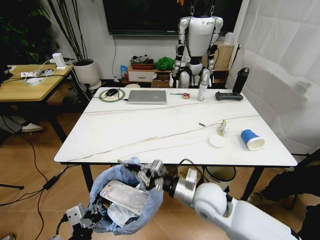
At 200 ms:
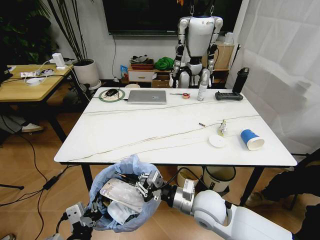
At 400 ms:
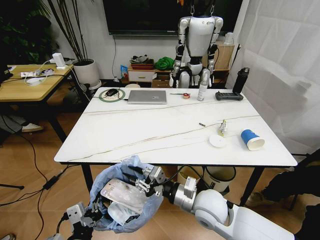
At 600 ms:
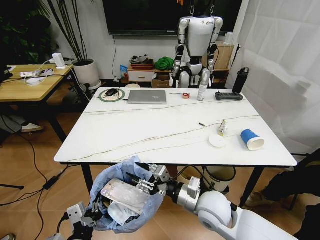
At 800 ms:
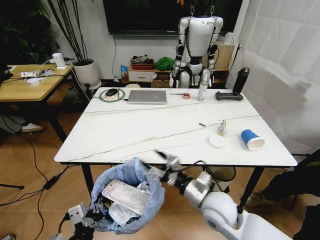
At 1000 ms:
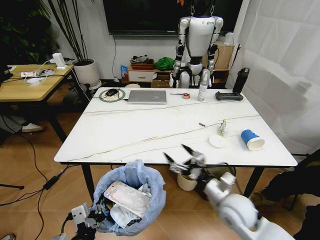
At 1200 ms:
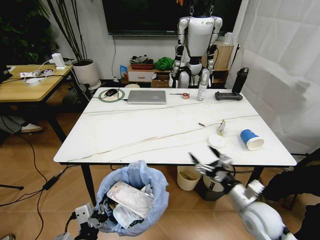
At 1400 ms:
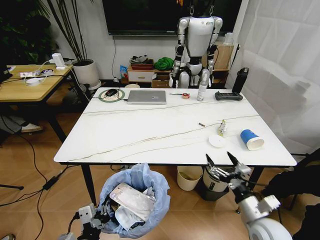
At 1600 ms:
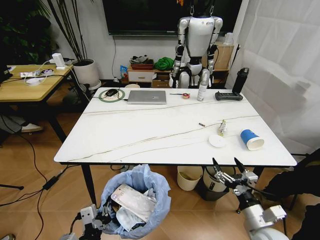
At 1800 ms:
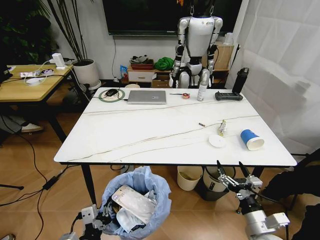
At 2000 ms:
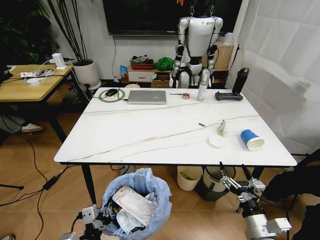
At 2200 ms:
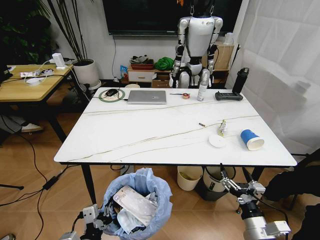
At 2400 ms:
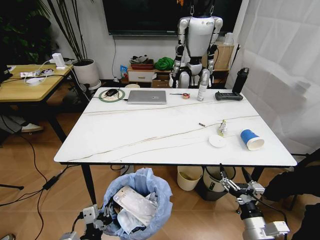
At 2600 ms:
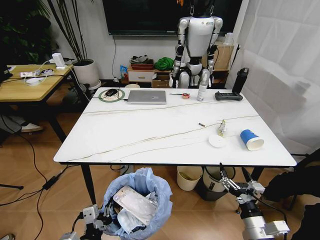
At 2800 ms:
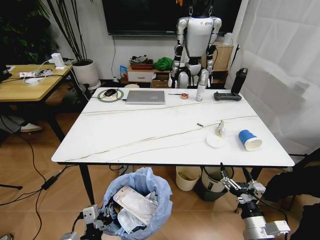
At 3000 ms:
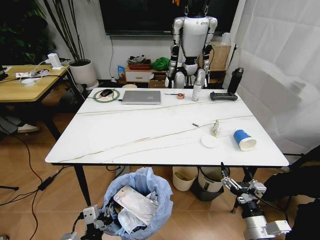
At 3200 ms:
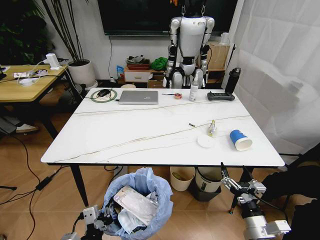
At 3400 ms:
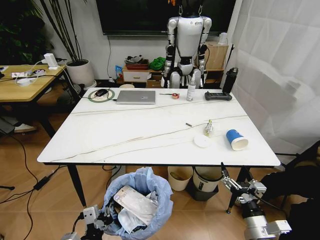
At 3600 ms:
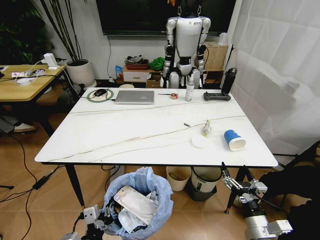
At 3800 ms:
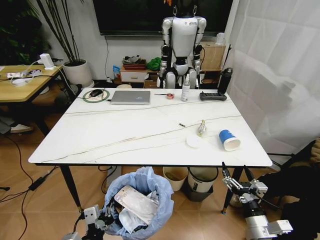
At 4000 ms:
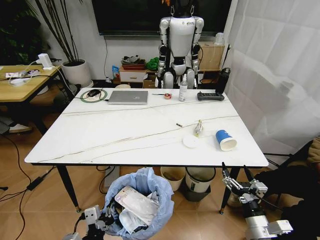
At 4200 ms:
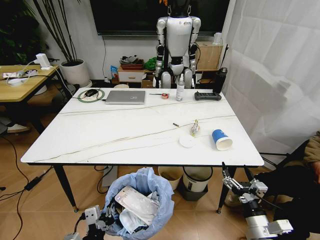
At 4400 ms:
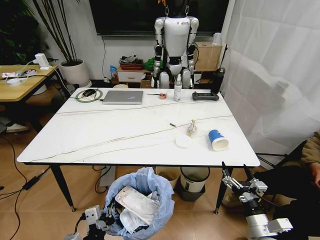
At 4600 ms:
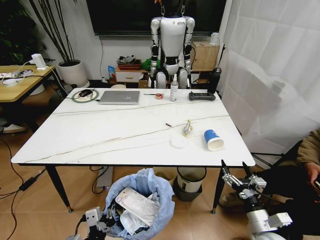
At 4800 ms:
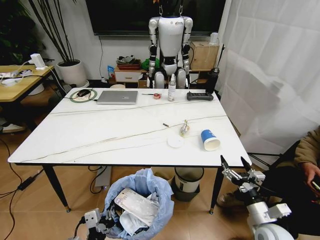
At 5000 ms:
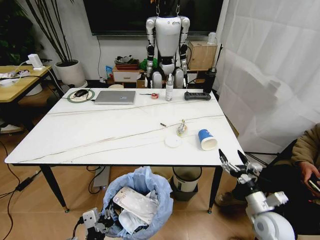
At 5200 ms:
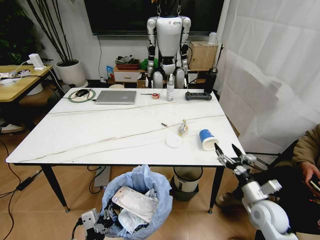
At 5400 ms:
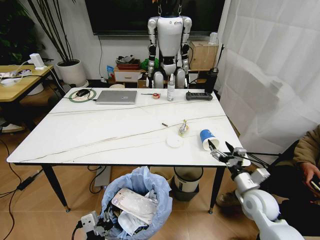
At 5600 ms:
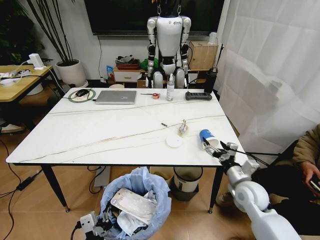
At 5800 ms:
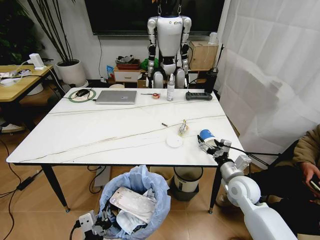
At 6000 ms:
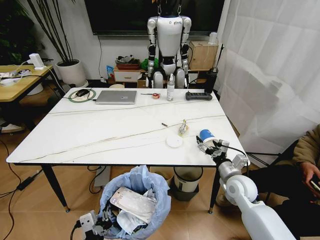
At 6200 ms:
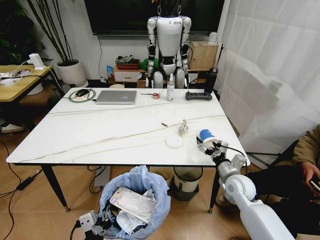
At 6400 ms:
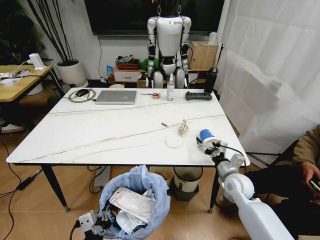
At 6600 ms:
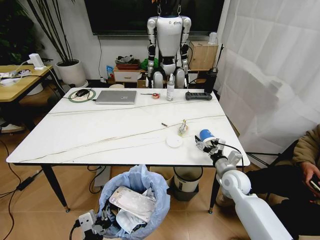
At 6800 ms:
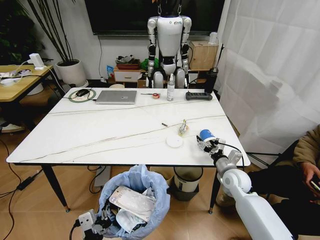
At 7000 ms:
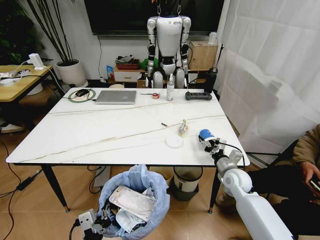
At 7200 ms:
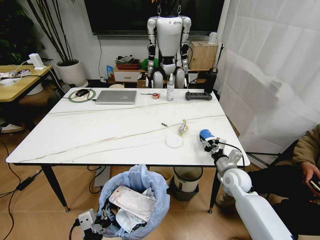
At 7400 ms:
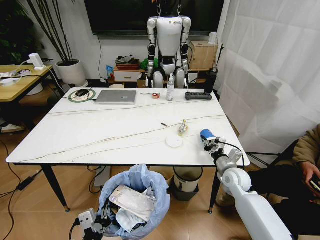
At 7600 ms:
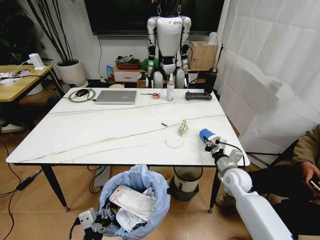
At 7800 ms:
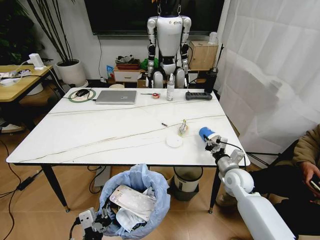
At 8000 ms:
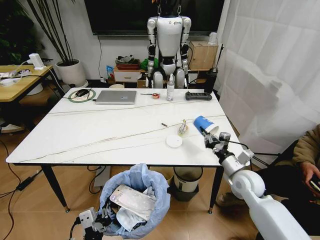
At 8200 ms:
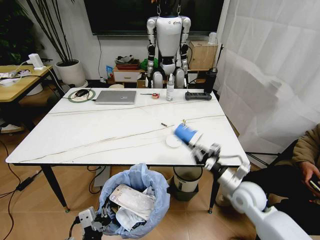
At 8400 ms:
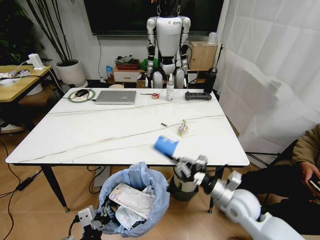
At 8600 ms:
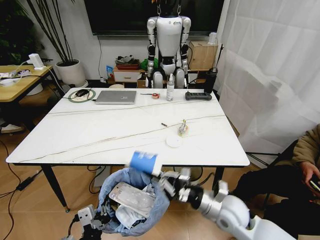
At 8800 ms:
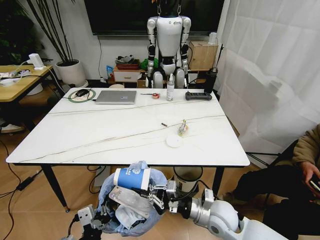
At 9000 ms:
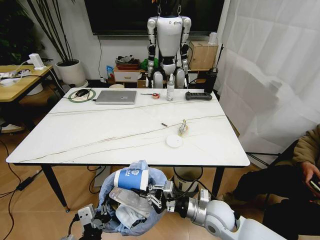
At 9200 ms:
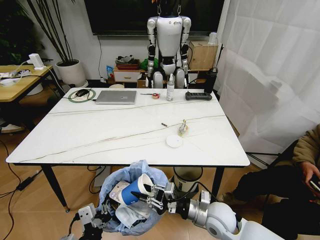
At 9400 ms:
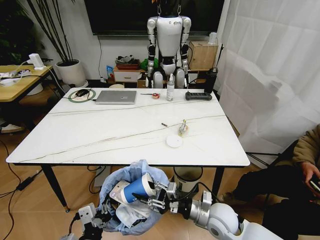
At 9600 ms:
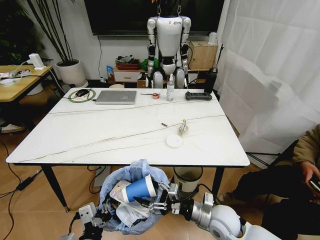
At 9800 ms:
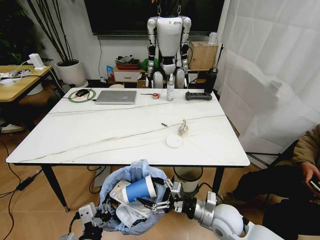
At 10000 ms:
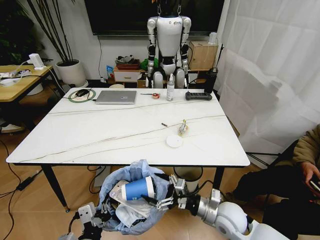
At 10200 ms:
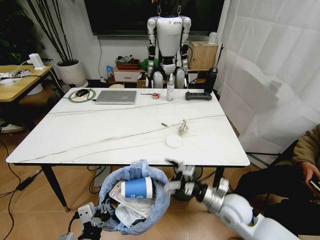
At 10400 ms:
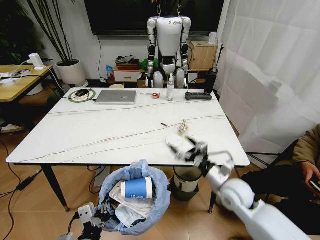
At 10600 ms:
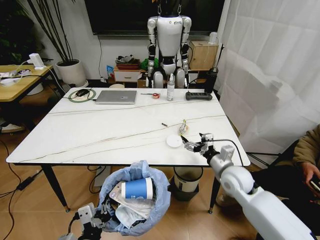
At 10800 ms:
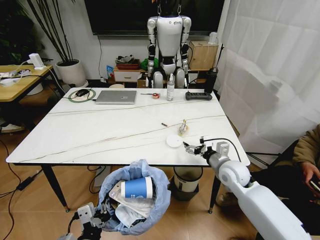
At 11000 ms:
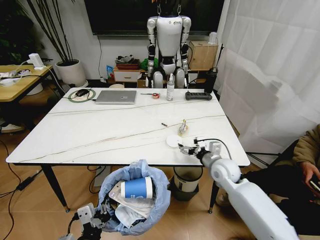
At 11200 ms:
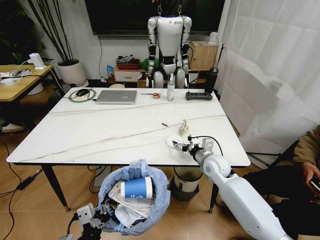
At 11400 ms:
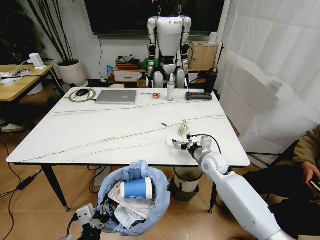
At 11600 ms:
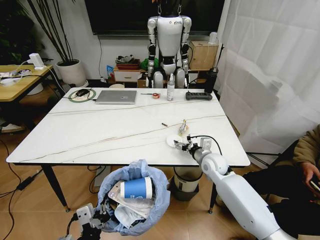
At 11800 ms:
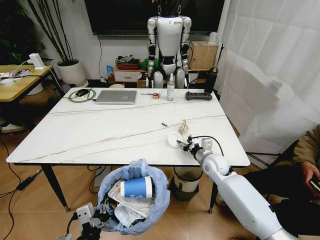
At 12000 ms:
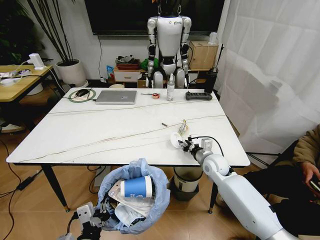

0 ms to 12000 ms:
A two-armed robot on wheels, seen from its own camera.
Task of the whole recording: Pick up the trash bin and place the trash from the table into it.
0 ms to 1600 ms: The right gripper moves to the right and backward, roughly 20 cm, and opens up.
4400 ms to 6000 ms: The right gripper moves forward, roughly 20 cm.
6000 ms to 7600 ms: The right gripper changes place by roughly 5 cm, and closes.
7600 ms to 9000 ms: The right gripper travels backward and to the left by roughly 15 cm.
9000 ms to 10400 ms: The right gripper goes some 5 cm to the right, and opens.
10400 ms to 12000 ms: The right gripper is displaced forward by some 15 cm, and closes.

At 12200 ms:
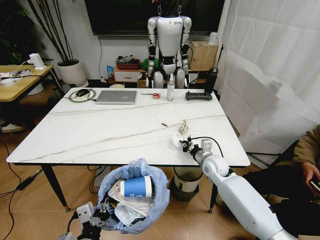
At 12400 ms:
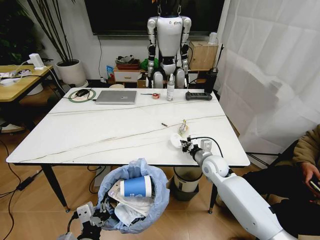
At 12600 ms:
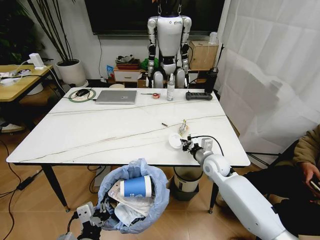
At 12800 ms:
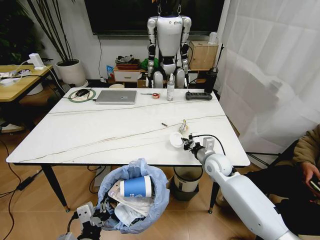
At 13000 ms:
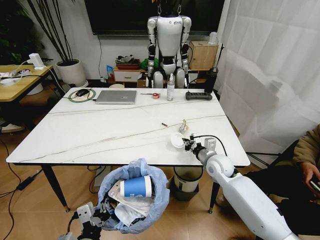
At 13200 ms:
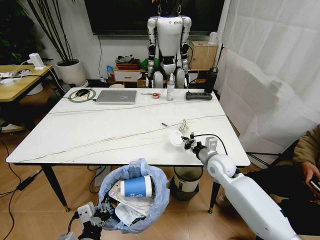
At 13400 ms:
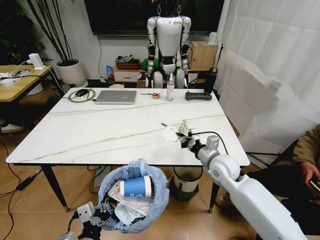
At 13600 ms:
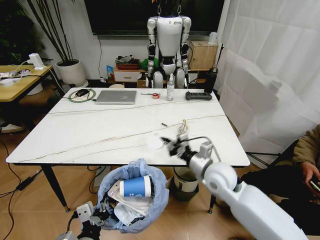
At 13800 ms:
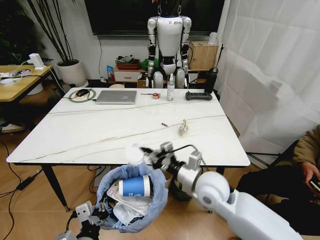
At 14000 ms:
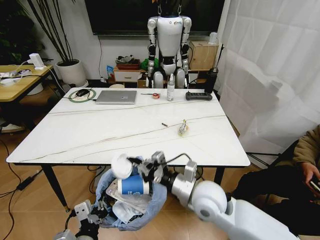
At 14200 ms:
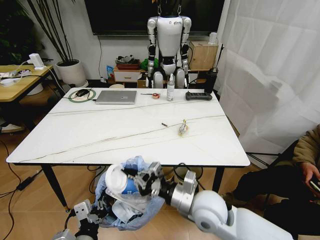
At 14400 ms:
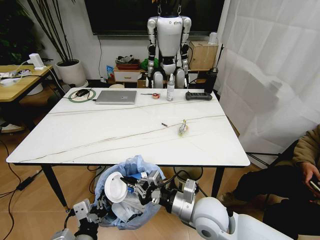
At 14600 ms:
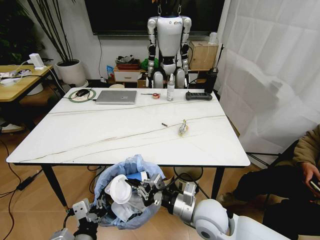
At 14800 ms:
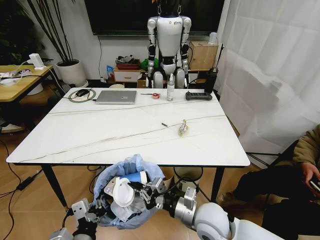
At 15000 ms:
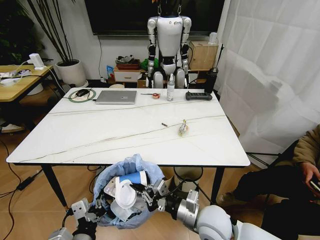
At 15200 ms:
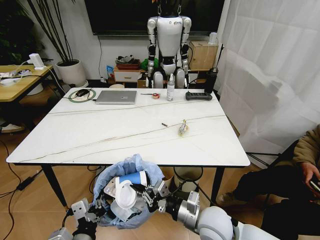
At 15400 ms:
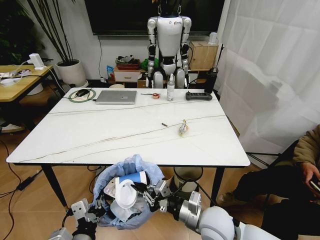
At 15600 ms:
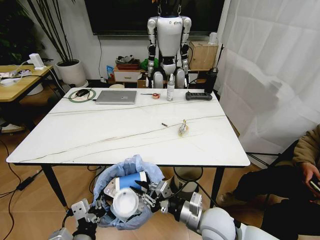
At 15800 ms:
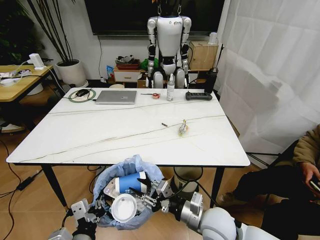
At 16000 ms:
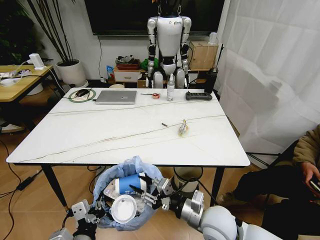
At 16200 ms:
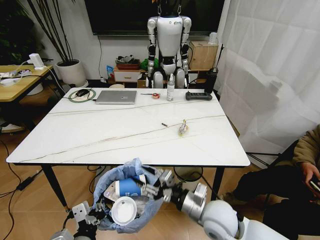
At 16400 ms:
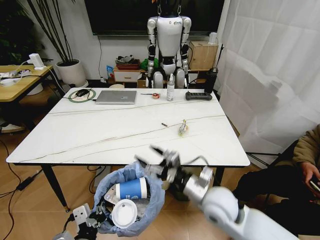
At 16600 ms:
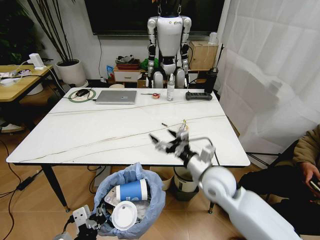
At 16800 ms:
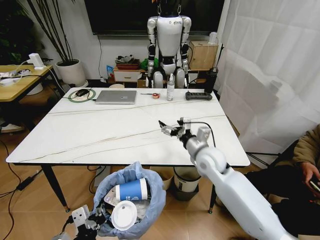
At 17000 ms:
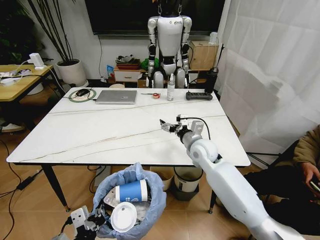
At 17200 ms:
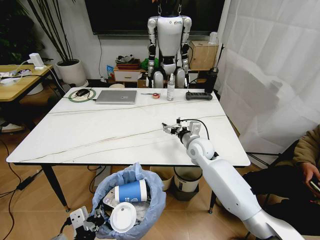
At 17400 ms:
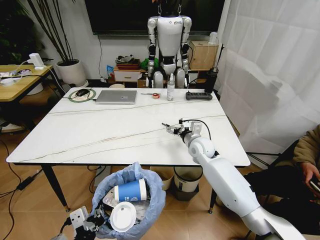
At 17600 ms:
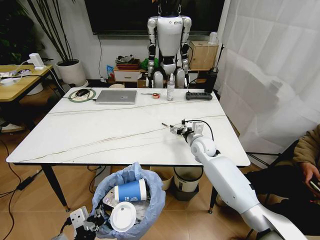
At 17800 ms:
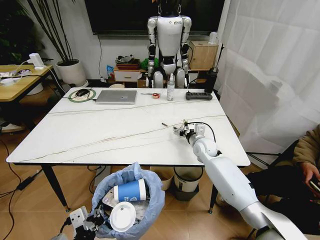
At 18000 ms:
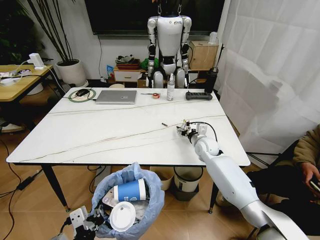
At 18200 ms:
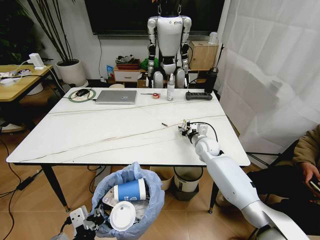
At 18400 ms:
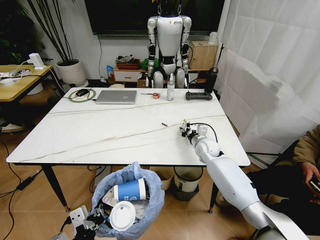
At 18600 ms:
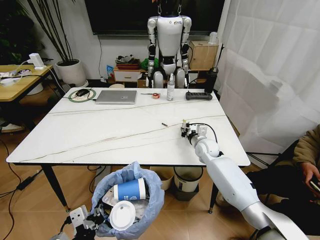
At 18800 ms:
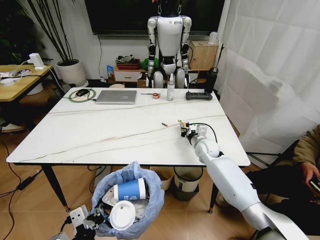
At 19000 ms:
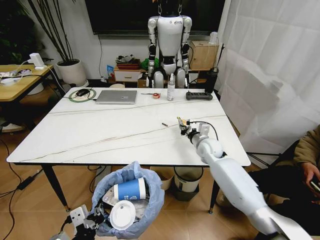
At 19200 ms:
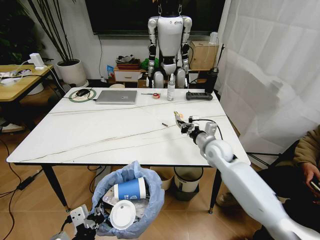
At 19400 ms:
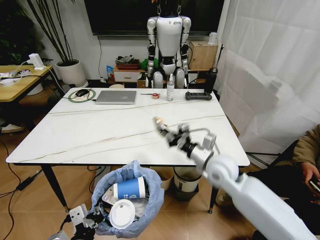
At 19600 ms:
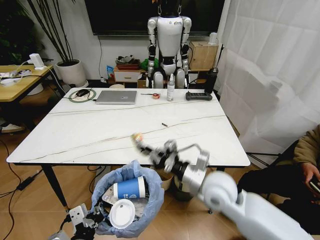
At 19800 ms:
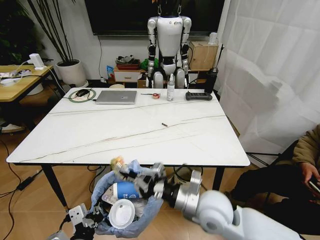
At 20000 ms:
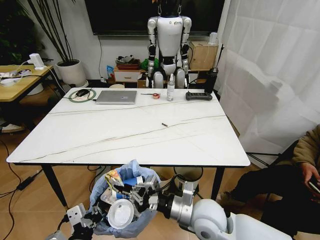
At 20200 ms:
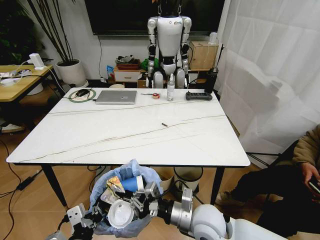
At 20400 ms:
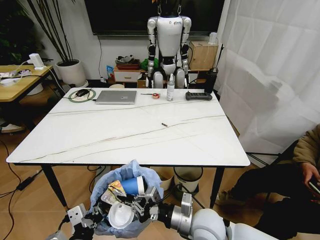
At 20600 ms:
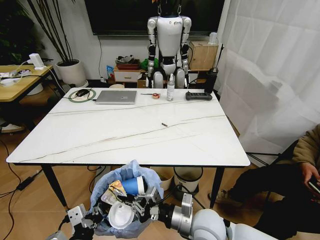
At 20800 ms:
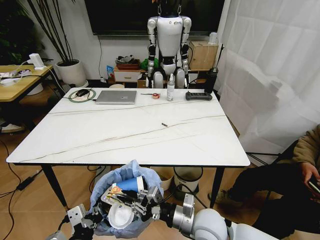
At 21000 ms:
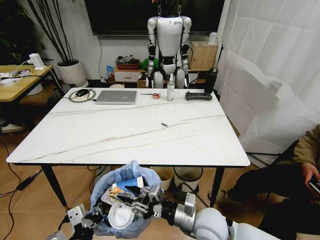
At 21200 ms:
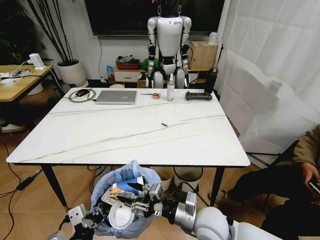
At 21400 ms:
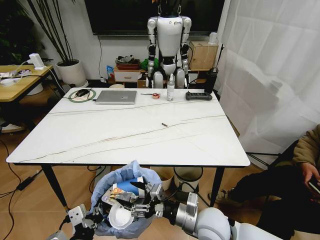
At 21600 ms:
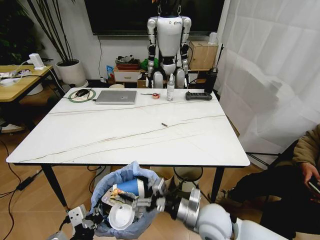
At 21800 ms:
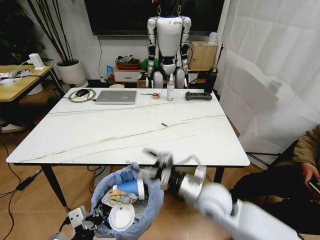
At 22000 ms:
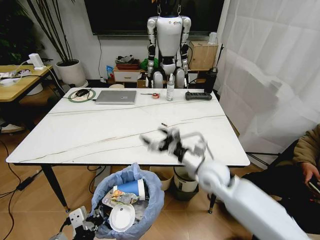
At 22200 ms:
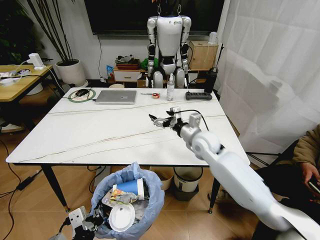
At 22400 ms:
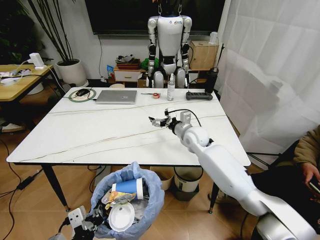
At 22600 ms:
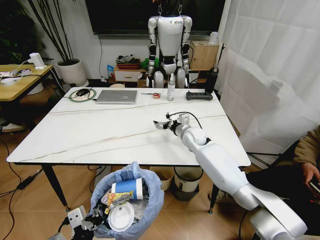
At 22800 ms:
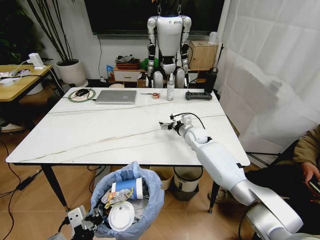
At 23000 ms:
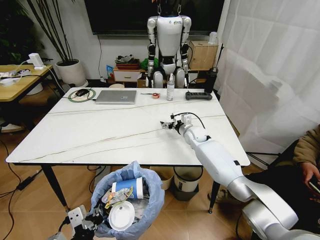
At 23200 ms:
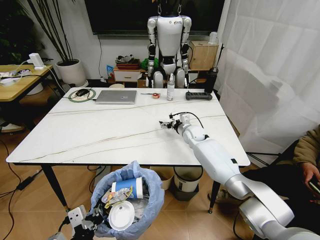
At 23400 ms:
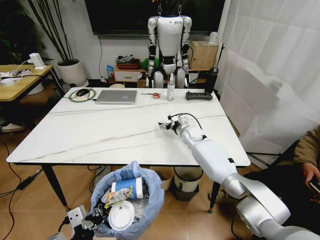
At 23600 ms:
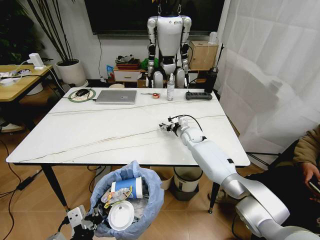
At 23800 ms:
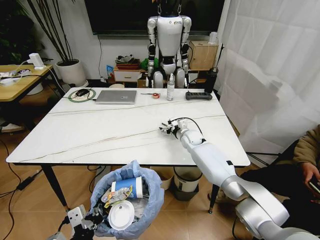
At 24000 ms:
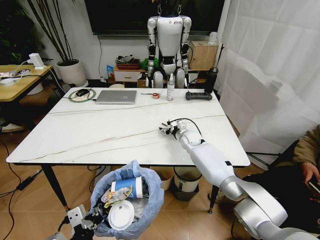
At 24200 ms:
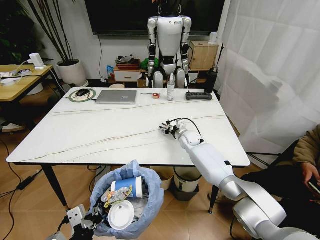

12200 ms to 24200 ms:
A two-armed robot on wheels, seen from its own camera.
Task of the whole recording: Pick up the trash bin and place the trash from the table into it.
12200 ms to 13800 ms: The right gripper moves backward, upward and to the left, roughly 20 cm.
13800 ms to 15200 ms: The right gripper is displaced backward and downward by approximately 10 cm.
15200 ms to 16600 ms: The right gripper goes roughly 15 cm forward and upward, and opens.
16600 ms to 18200 ms: The right gripper shifts roughly 20 cm forward and downward, and closes.
18200 ms to 19800 ms: The right gripper travels backward by about 25 cm, and closes.
19800 ms to 21200 ms: The right gripper is displaced downward by approximately 5 cm, and opens its fingers.
21200 ms to 22600 ms: The right gripper travels forward by about 30 cm, and opens.
22600 ms to 24200 ms: The right gripper shifts approximately 10 cm downward, and closes up.
